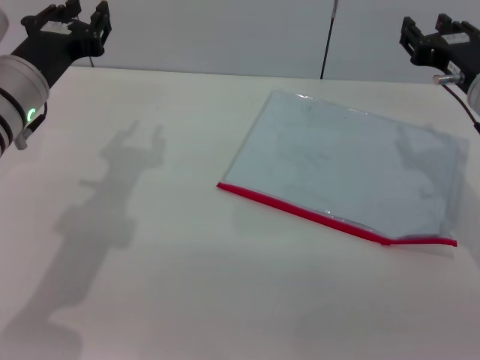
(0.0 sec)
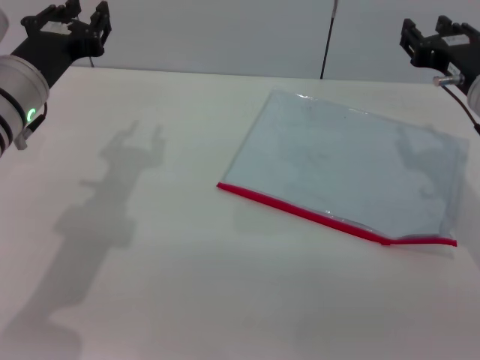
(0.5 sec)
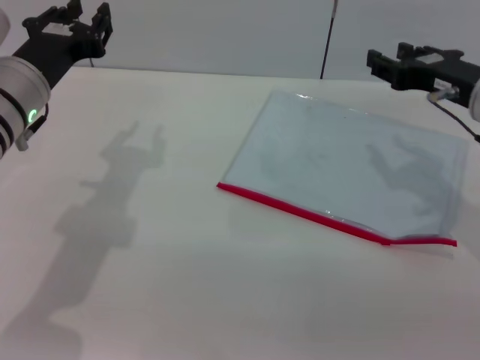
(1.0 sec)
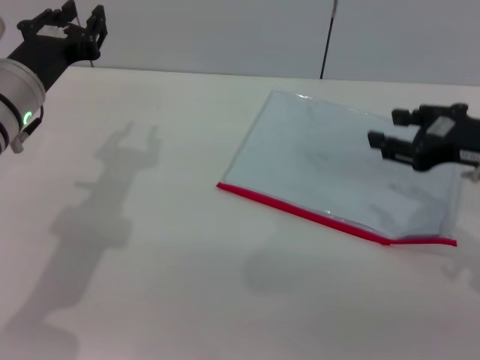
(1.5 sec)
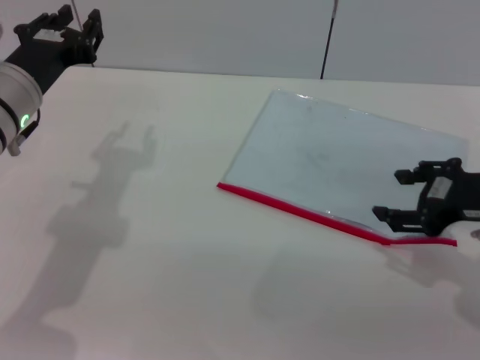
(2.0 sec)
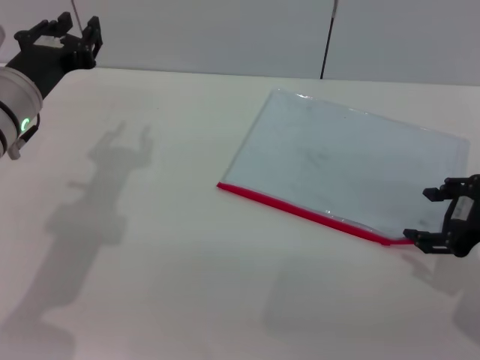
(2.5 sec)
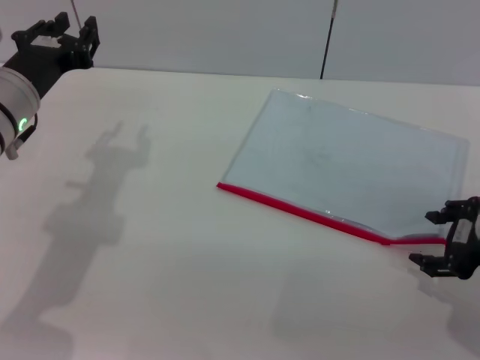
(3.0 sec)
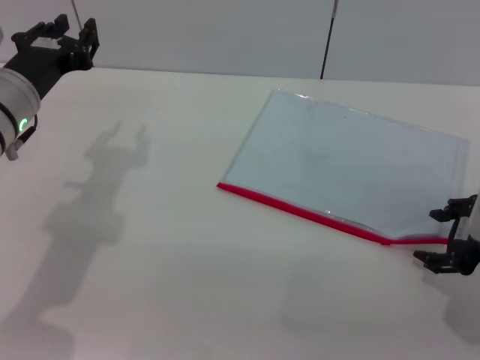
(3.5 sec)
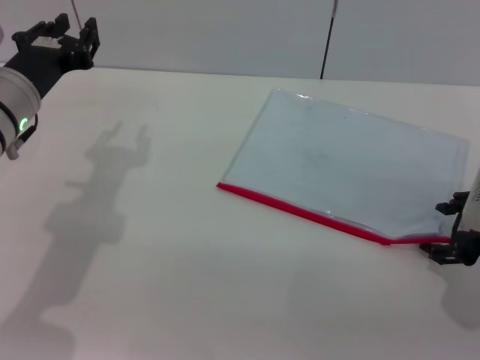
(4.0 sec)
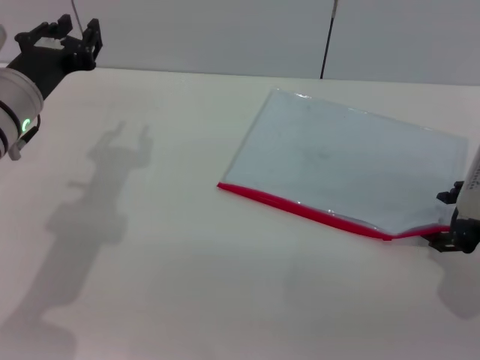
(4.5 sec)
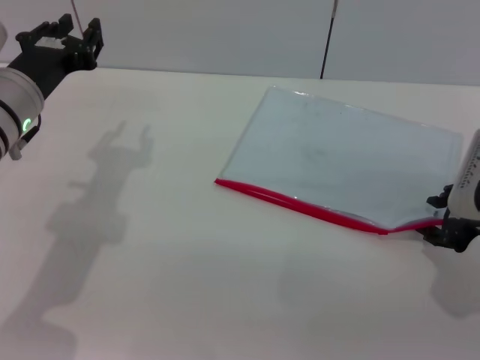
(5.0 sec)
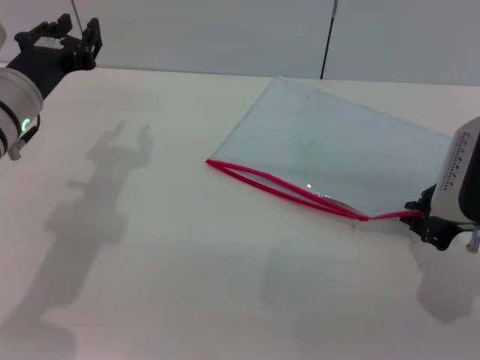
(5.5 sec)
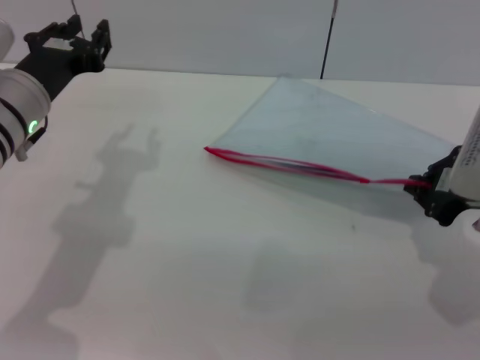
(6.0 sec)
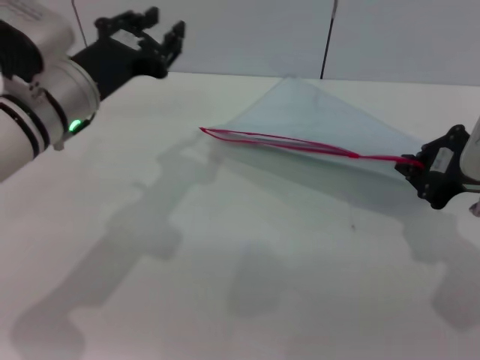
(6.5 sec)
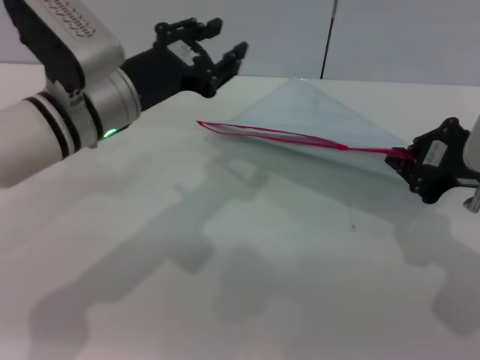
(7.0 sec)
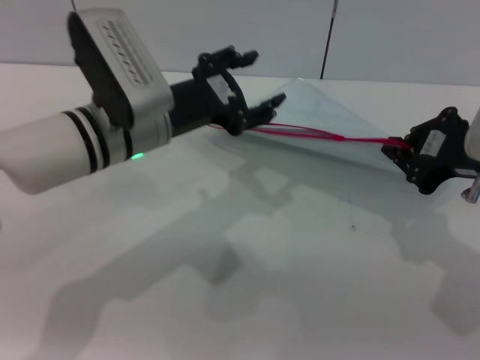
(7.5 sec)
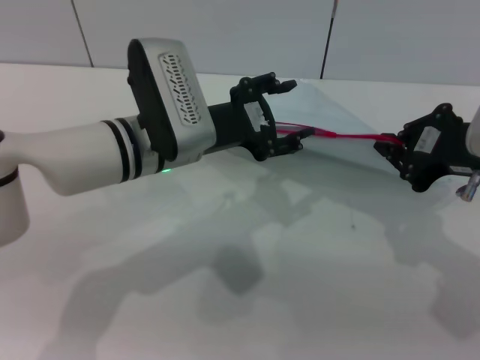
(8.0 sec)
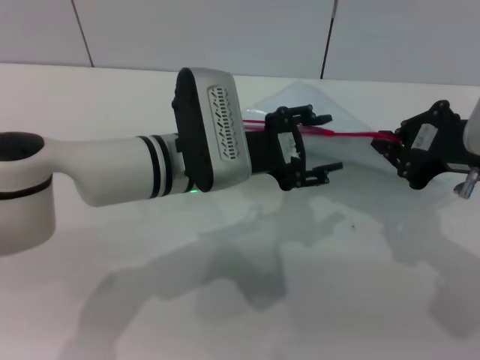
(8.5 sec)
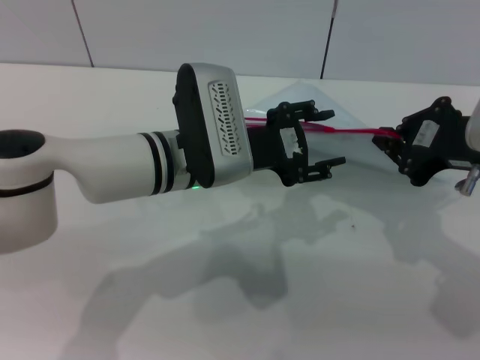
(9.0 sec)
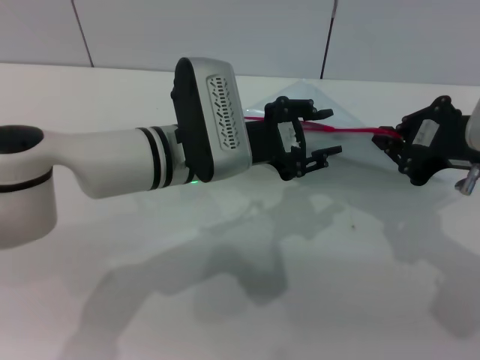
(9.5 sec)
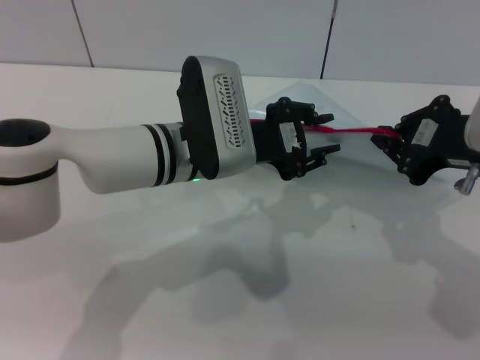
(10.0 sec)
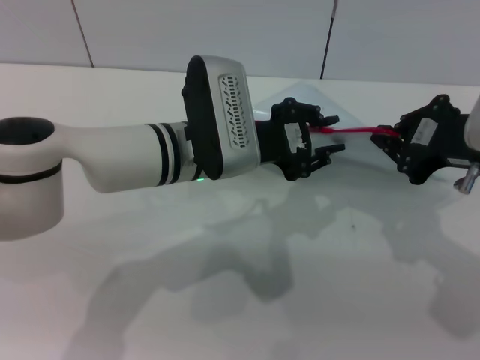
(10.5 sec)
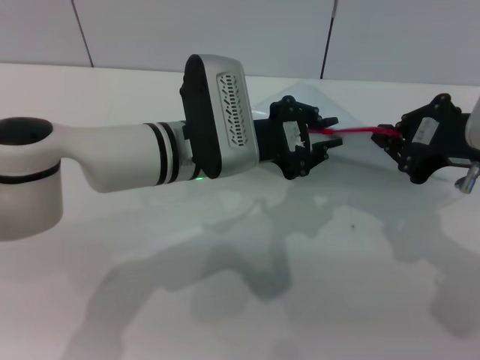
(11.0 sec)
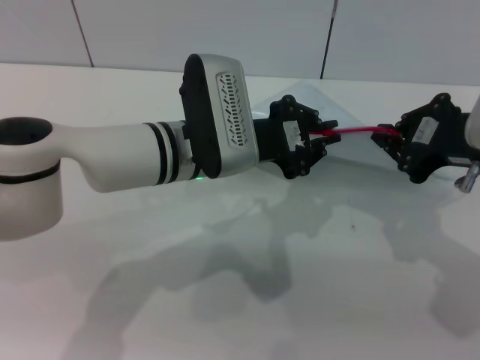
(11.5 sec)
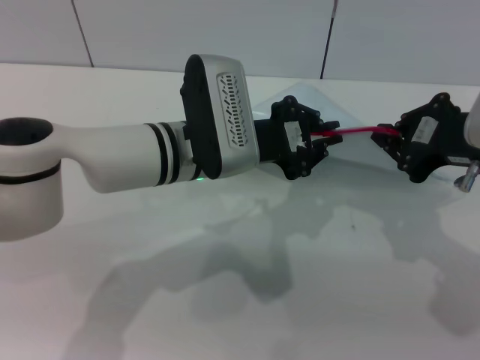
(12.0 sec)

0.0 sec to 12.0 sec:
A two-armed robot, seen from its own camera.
Step, 0.0 sec to 7.5 sec: Pick up the transparent plastic bag with the right gripper.
0.0 sec to 2.0 sec: The right gripper heads backward, covering about 5 cm.
4.0 sec to 6.0 sec: The right gripper closes up.
6.0 sec to 8.0 sec: The left gripper travels to the right by some 10 cm, and opens up.
8.0 sec to 10.0 sec: The left gripper closes up.
10.0 sec to 12.0 sec: The left gripper closes.

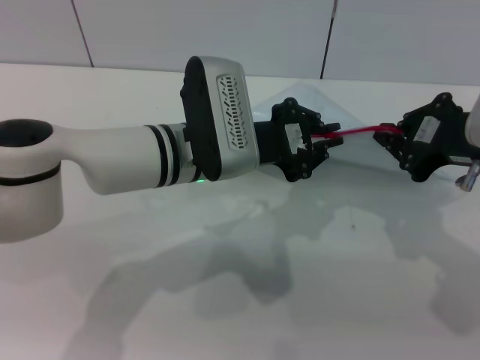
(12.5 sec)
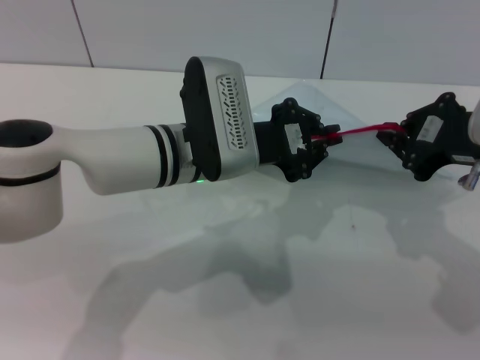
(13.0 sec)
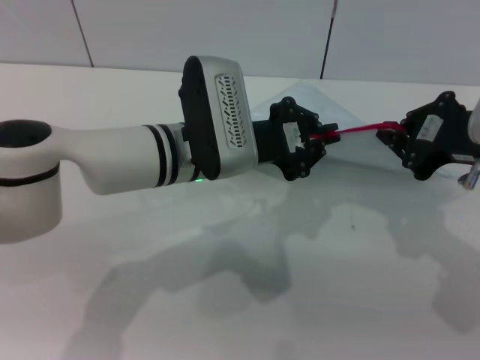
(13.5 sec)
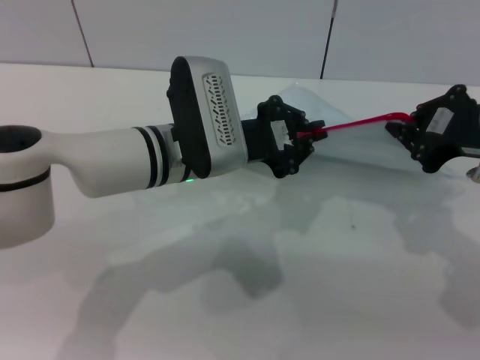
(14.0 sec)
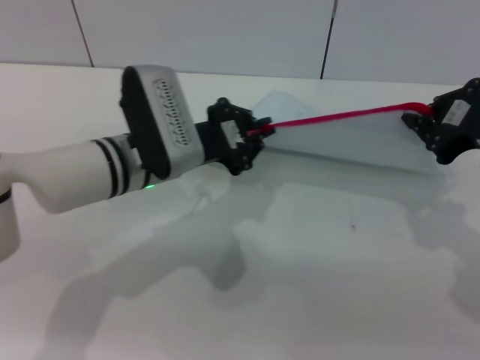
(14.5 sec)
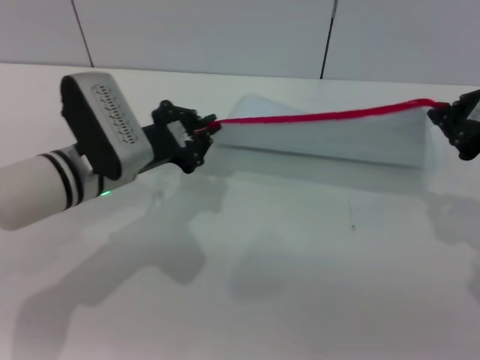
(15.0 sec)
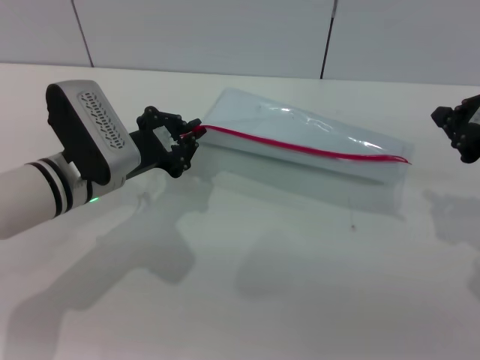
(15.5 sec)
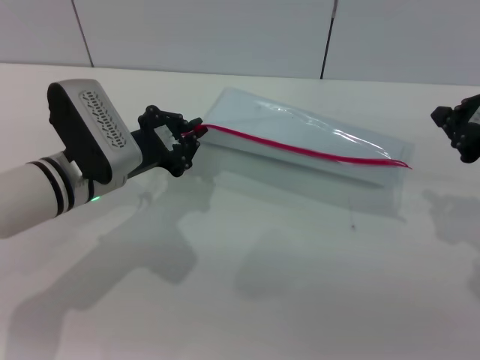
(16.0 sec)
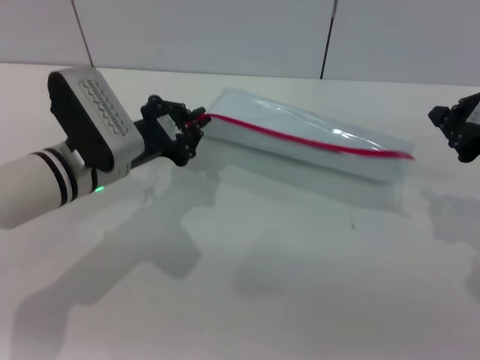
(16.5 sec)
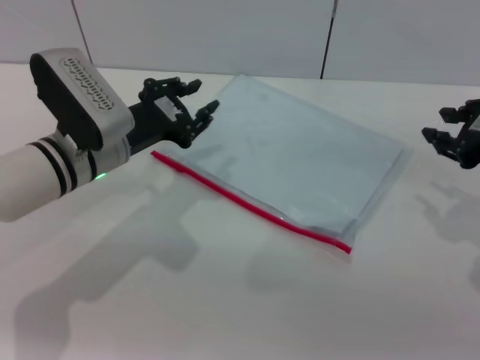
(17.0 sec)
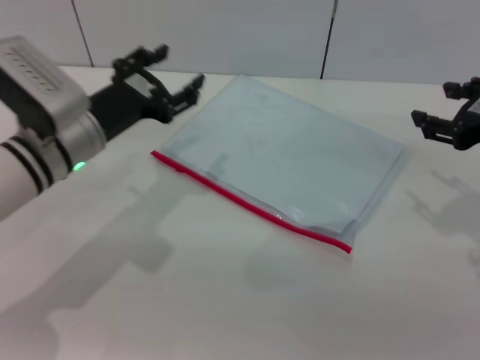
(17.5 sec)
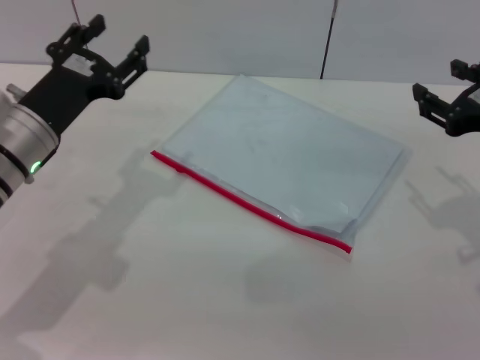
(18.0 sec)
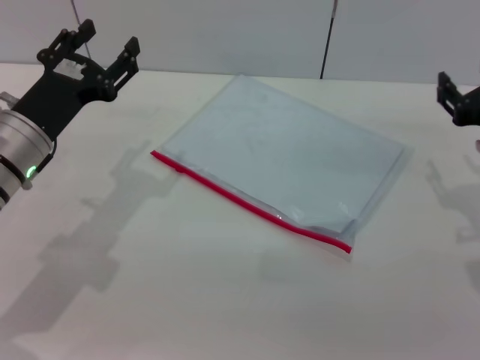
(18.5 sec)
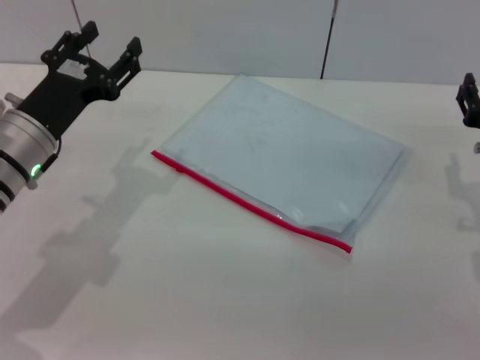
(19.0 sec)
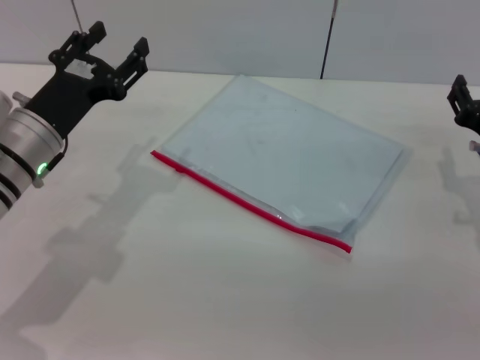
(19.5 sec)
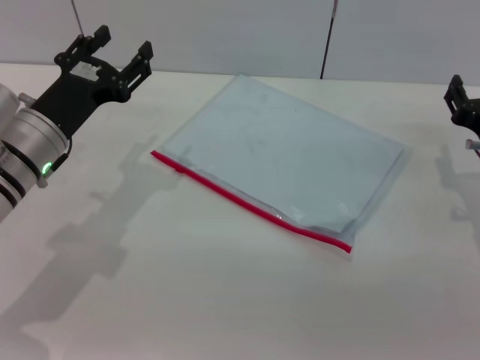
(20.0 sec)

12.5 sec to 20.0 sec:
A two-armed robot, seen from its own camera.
Step, 12.5 sec to 15.0 sec: Pulling up the zipper on the transparent plastic bag with the left gripper to close it.
Step, 15.5 sec to 17.5 sec: Place the transparent plastic bag.
12.5 sec to 14.5 sec: The left gripper goes roughly 5 cm to the left.
14.5 sec to 16.5 sec: The left gripper heads to the left, covering some 5 cm.
16.5 sec to 18.0 sec: The left gripper heads to the left, covering roughly 5 cm, and opens. The right gripper opens up.
18.0 sec to 20.0 sec: The right gripper goes approximately 10 cm downward.
